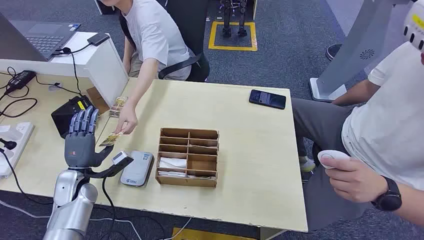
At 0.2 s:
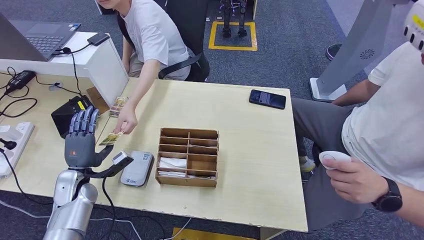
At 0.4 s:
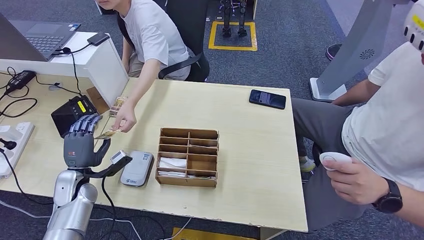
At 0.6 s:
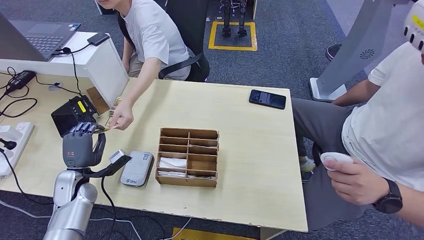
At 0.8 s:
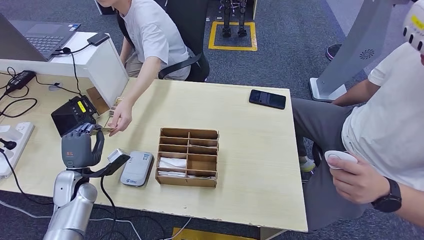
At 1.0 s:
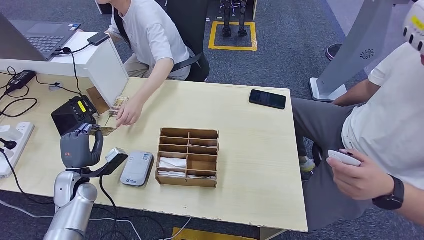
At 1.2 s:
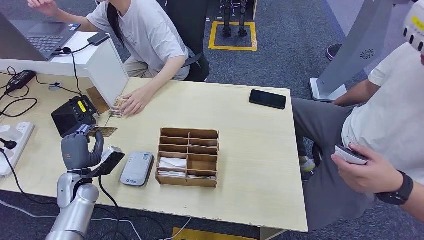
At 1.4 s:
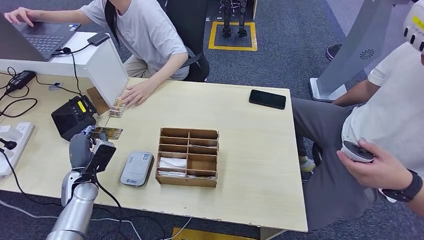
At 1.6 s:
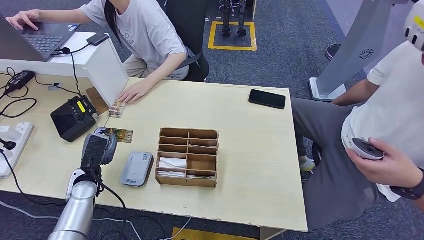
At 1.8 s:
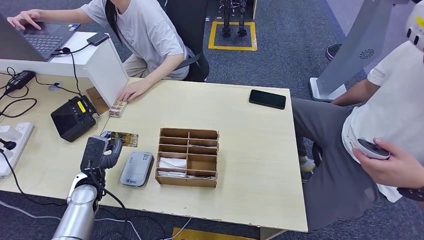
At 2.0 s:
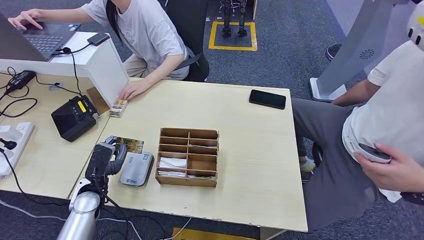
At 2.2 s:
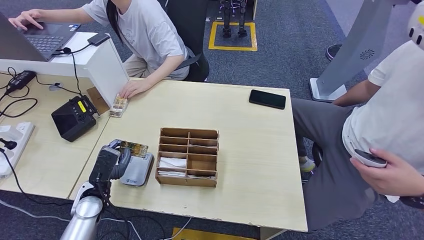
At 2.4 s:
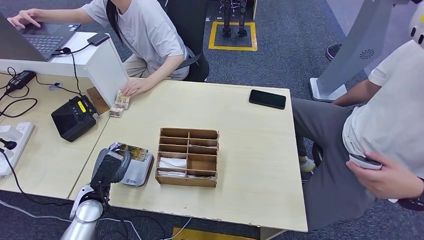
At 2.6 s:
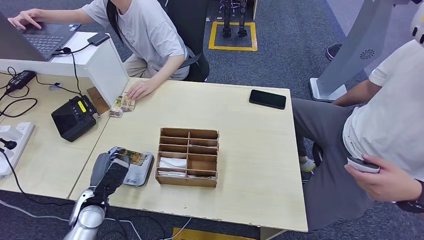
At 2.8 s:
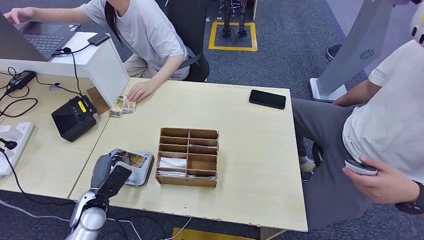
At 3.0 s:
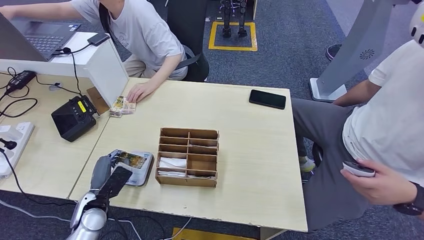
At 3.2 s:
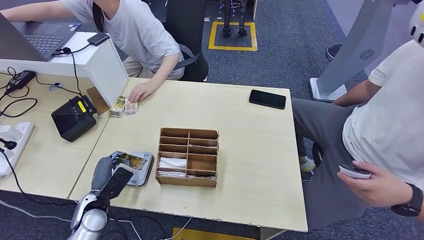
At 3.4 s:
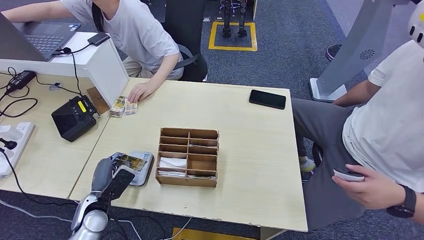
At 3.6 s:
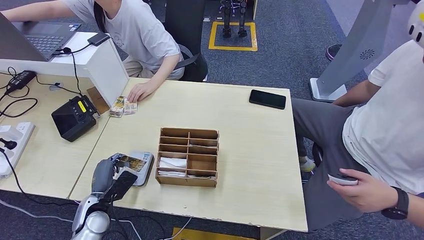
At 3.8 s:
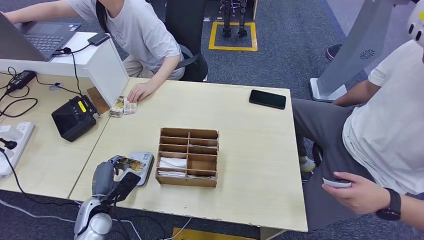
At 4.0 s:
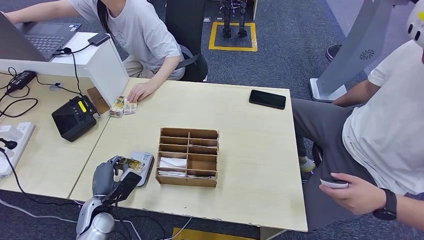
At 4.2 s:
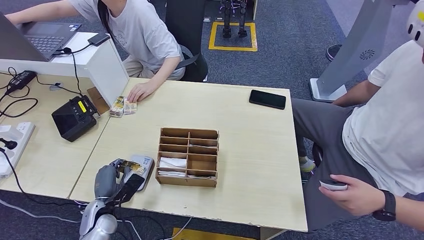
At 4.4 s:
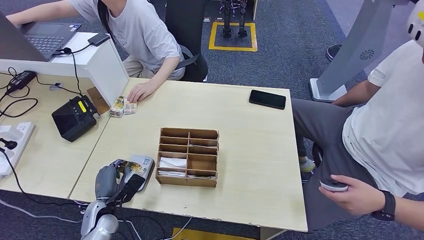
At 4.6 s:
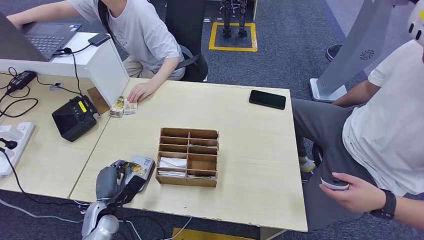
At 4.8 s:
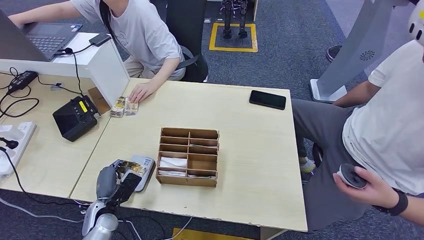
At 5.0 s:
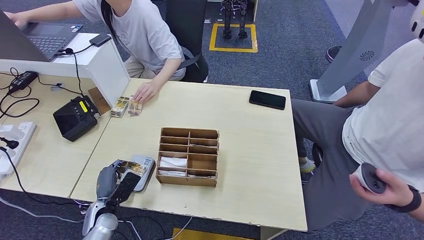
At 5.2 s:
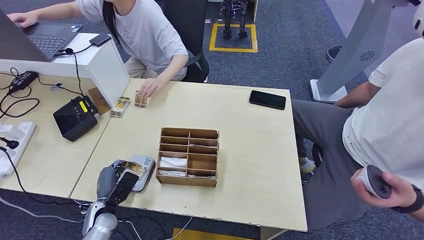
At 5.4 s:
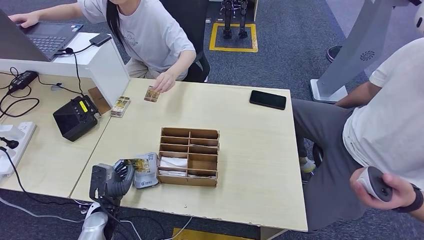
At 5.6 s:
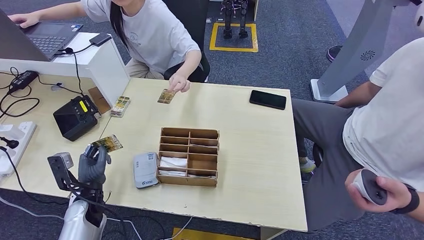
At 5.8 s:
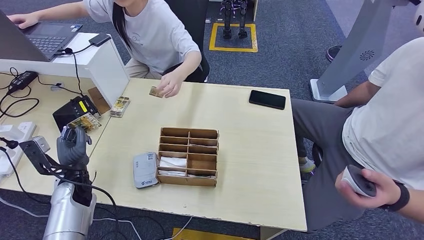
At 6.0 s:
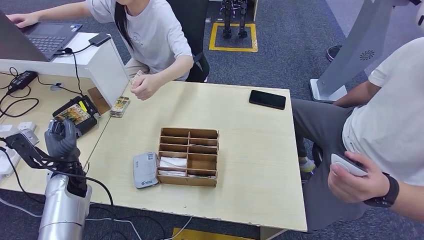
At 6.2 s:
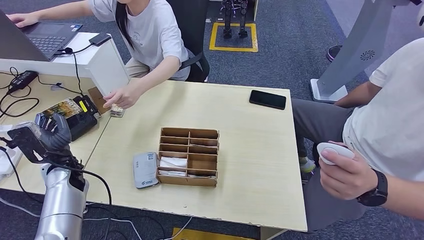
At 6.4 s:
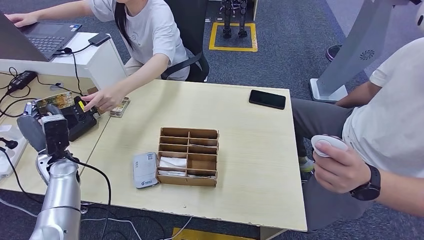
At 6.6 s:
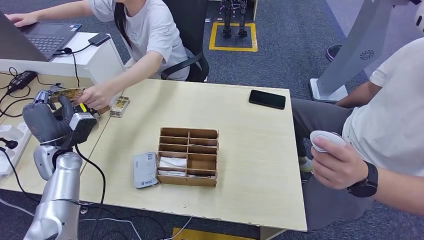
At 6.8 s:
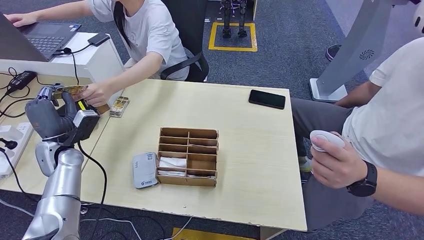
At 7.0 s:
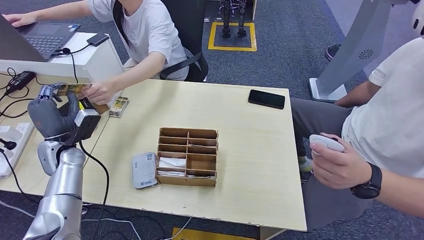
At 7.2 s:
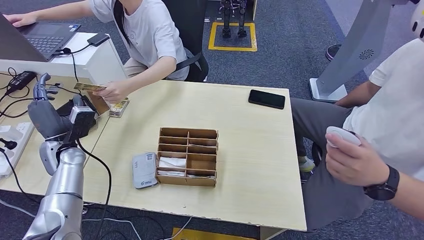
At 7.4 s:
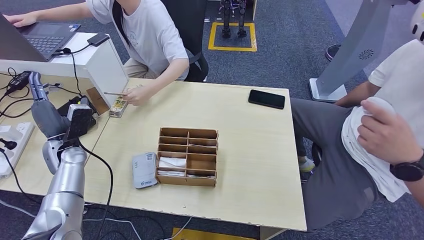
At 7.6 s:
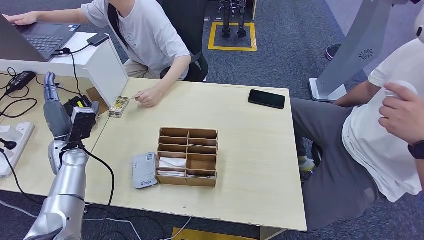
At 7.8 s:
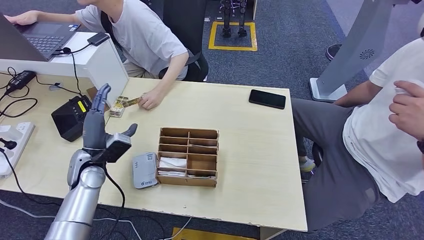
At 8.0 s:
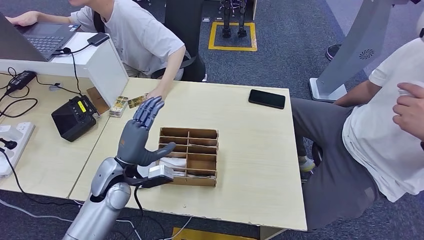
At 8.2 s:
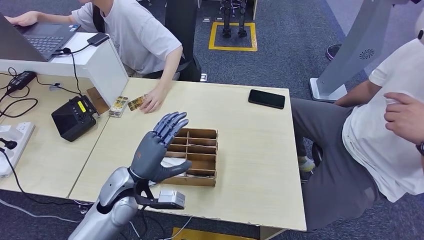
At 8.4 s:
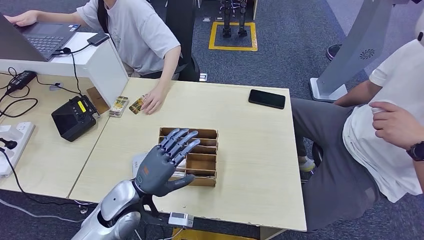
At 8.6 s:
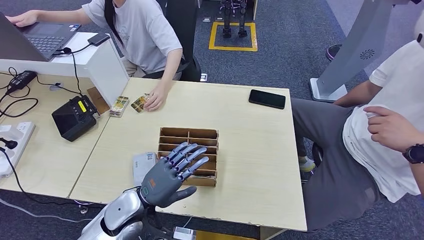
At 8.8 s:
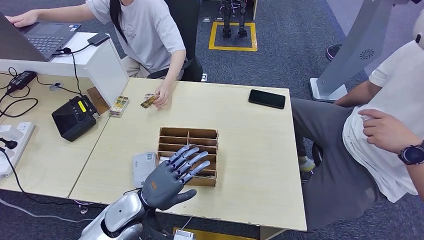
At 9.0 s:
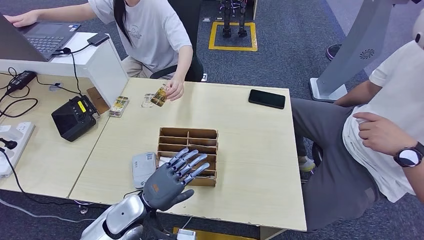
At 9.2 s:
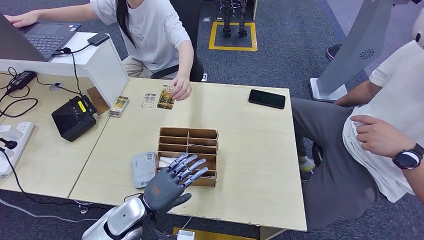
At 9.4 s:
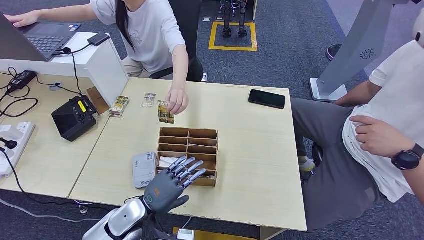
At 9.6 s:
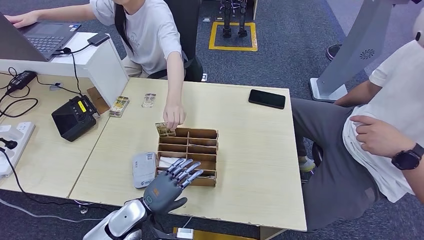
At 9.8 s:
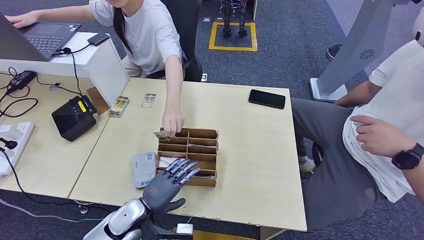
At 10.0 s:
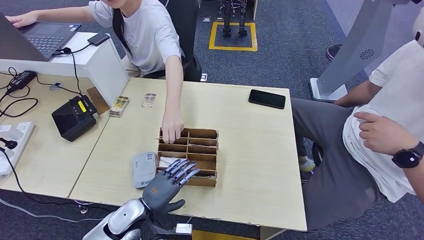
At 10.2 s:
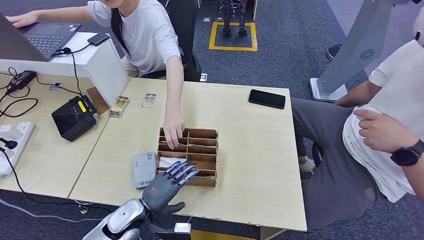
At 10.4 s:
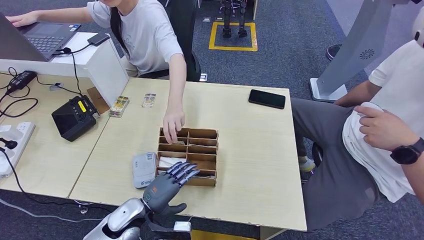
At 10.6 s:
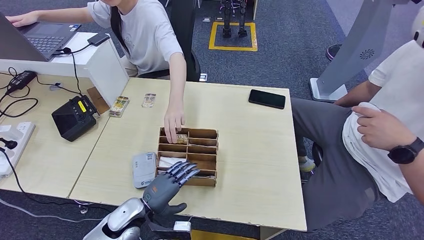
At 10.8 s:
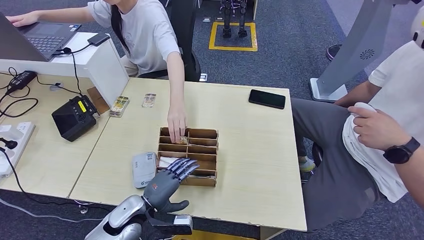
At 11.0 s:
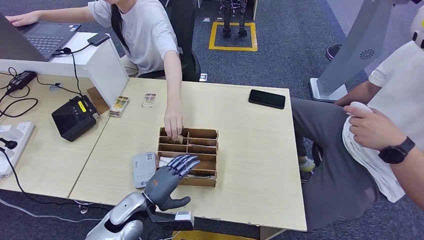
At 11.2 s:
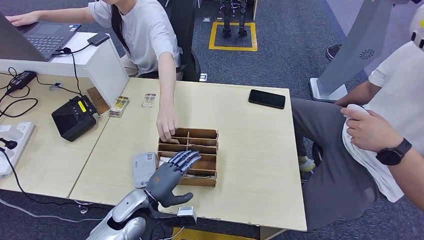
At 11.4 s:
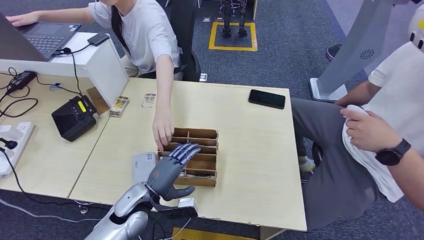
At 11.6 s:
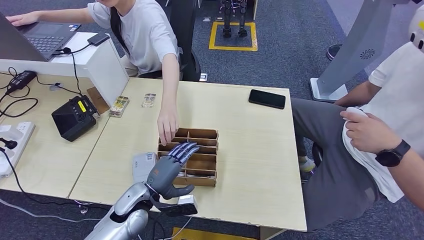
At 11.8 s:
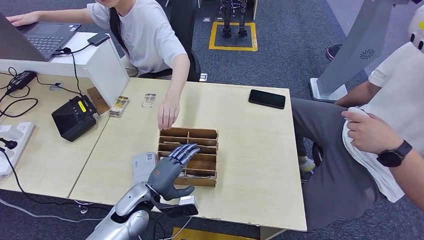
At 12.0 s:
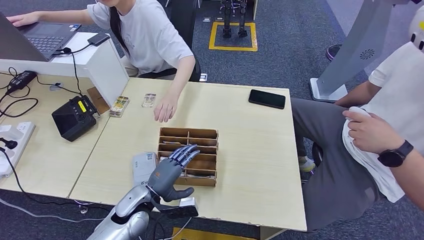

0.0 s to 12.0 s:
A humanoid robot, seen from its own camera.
Step, 0.0 to 1.2 s: Take the ID card from the person's hand.
Step, 1.4 to 4.2 s: Place the ID card on the card reader.
Step, 4.4 to 7.2 s: Hand the ID card to the person.
1.6 to 3.0 s: The left hand shifts roughly 5 cm backward.
3.0 to 4.4 s: The left hand is displaced downward by approximately 5 cm.
7.6 to 9.0 s: The left hand is displaced to the right and backward by about 25 cm.
9.0 to 10.4 s: The left hand travels downward by about 5 cm.
10.4 to 12.0 s: The hands make only small movements.

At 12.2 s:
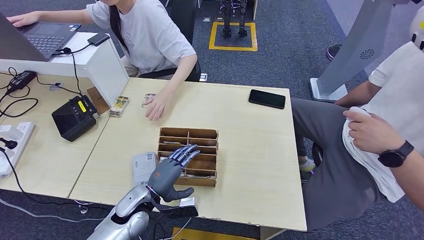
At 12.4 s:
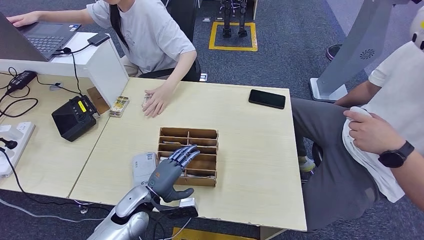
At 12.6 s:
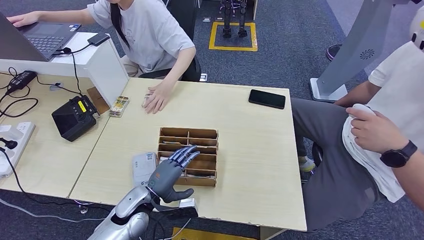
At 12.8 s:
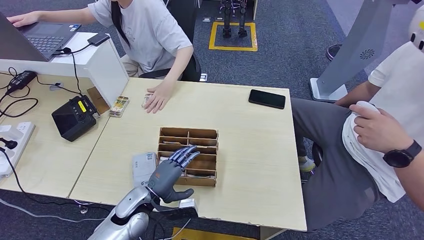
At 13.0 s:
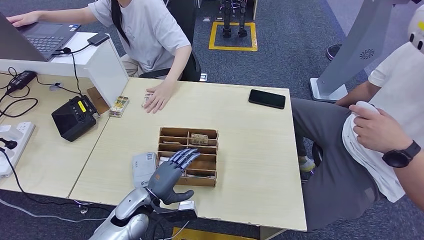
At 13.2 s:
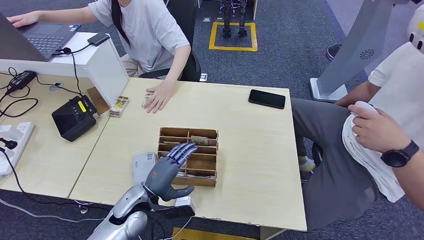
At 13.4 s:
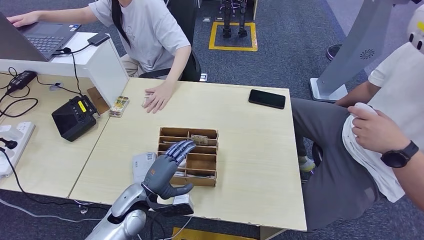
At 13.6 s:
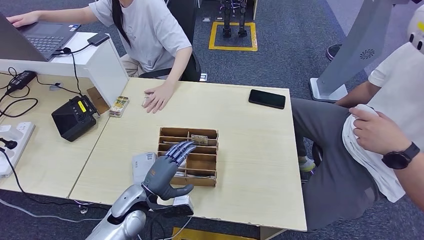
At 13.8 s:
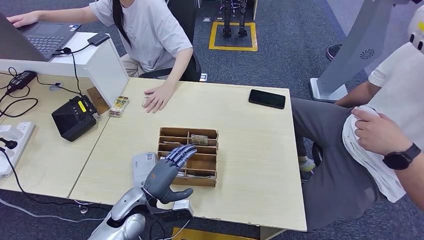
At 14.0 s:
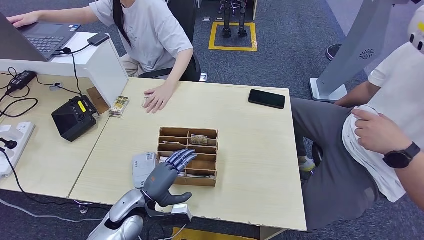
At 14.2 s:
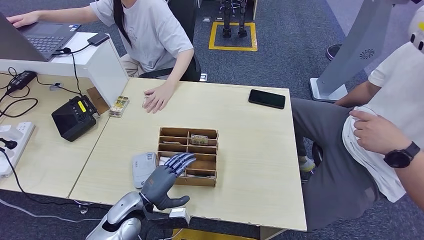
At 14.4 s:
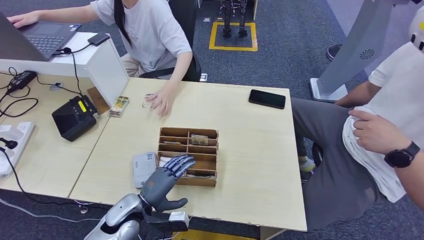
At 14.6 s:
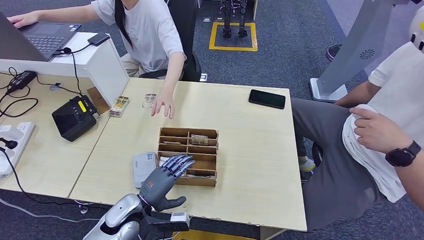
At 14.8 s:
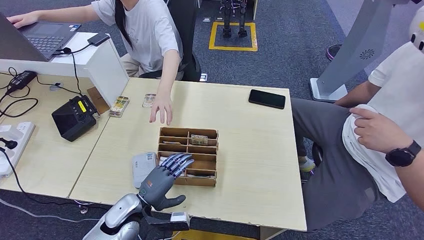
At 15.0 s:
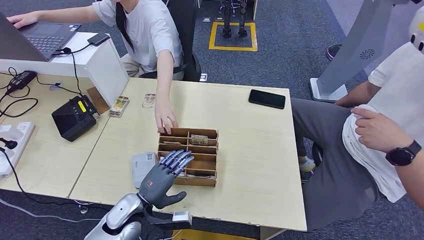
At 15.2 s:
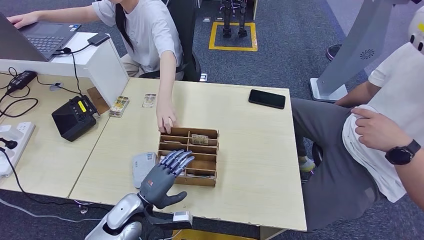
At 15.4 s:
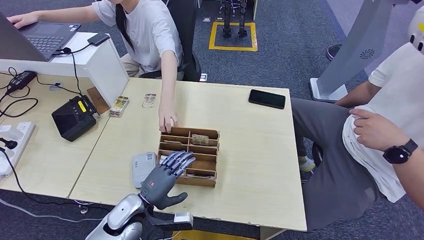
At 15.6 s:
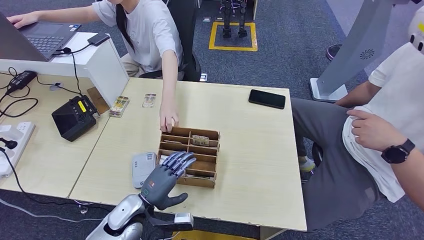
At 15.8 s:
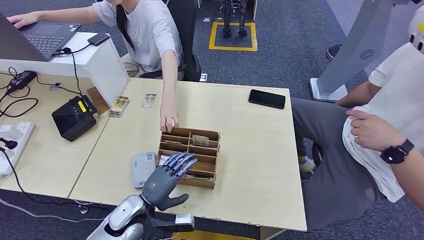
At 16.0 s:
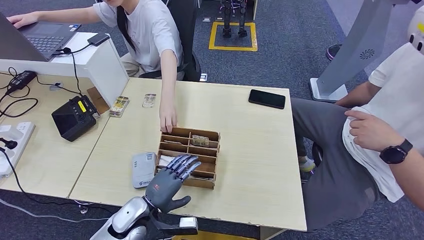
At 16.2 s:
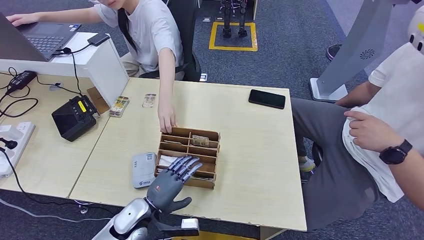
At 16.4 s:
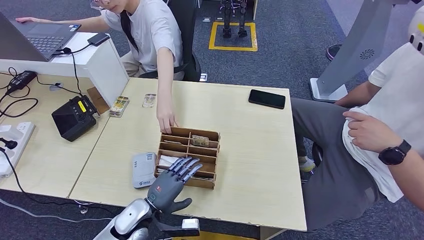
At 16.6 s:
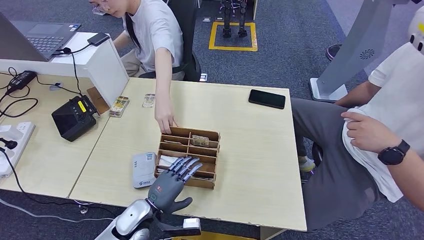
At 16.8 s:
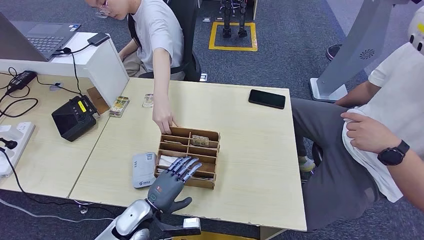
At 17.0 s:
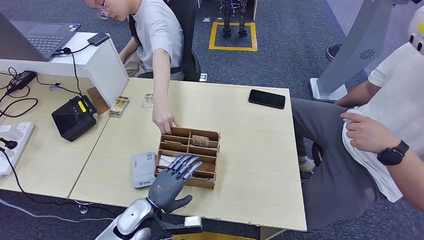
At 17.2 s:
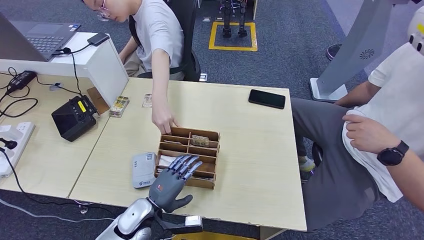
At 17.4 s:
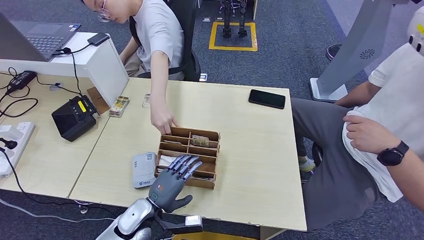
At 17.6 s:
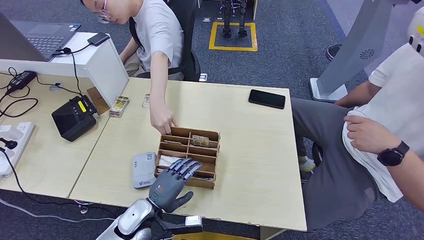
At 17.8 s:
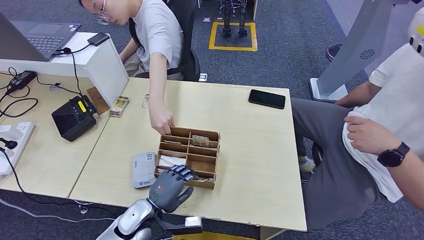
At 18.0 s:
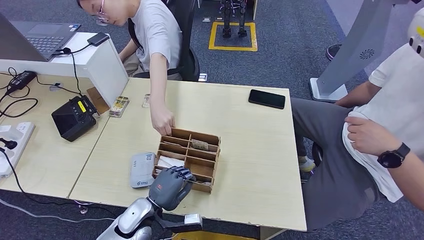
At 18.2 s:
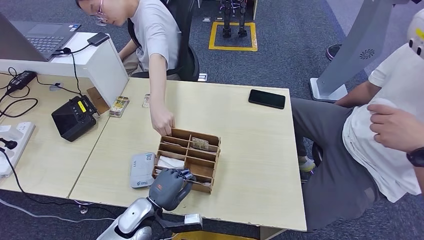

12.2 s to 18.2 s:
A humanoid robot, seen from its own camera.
12.2 to 16.6 s: There are only small adjustments of the hands.
16.6 to 18.2 s: Neither hand changes place.
